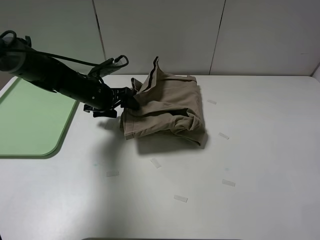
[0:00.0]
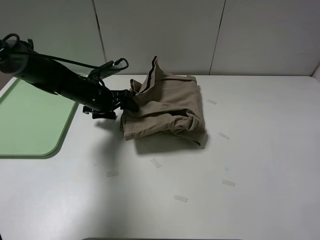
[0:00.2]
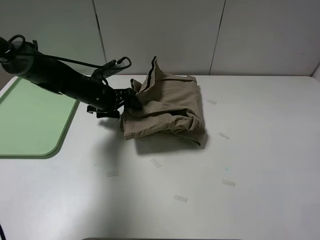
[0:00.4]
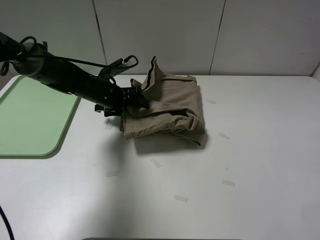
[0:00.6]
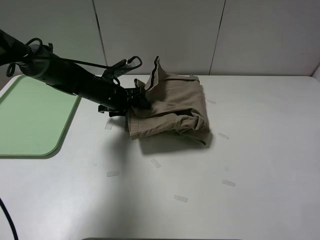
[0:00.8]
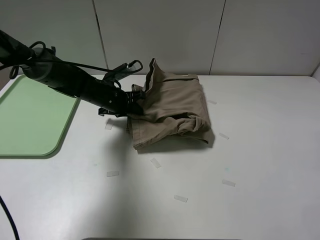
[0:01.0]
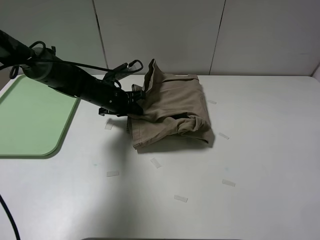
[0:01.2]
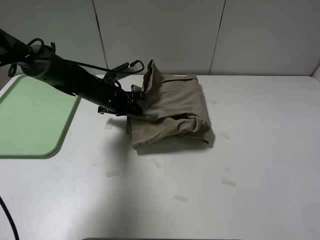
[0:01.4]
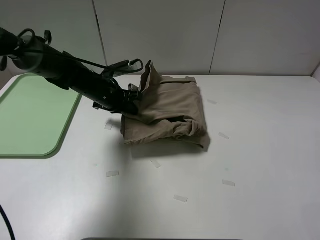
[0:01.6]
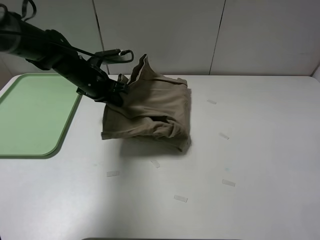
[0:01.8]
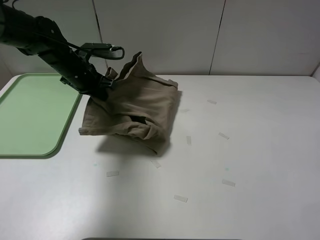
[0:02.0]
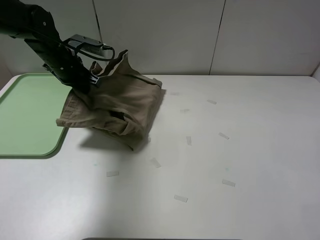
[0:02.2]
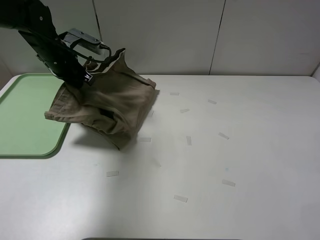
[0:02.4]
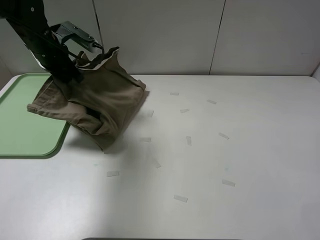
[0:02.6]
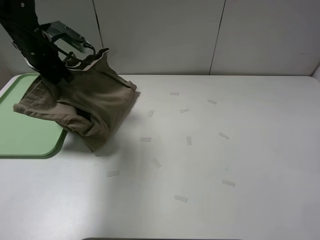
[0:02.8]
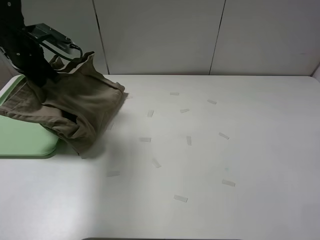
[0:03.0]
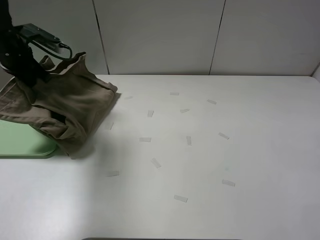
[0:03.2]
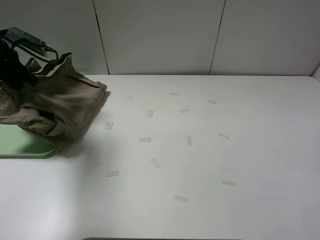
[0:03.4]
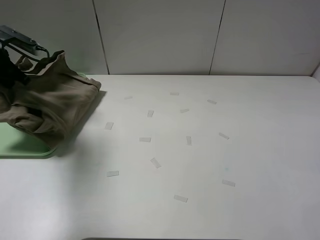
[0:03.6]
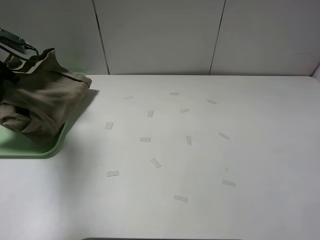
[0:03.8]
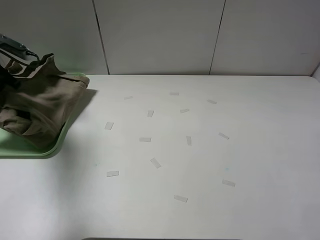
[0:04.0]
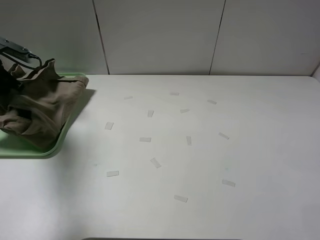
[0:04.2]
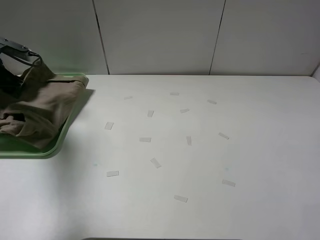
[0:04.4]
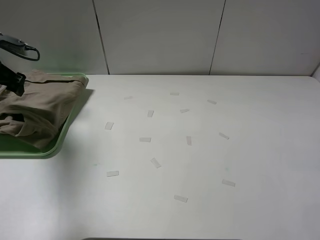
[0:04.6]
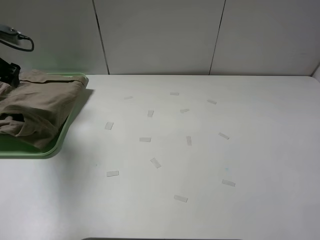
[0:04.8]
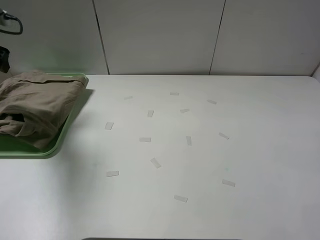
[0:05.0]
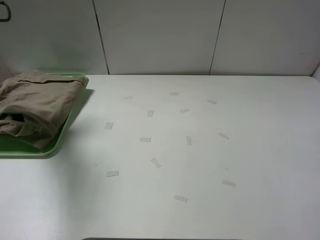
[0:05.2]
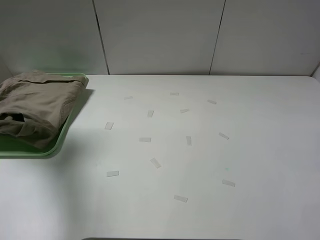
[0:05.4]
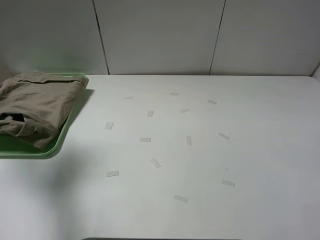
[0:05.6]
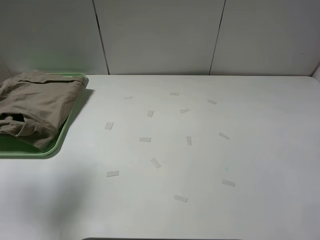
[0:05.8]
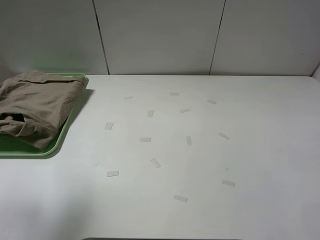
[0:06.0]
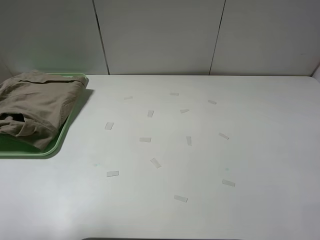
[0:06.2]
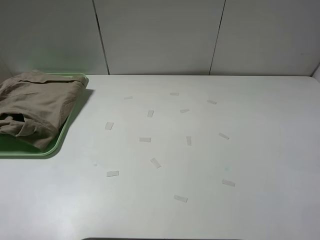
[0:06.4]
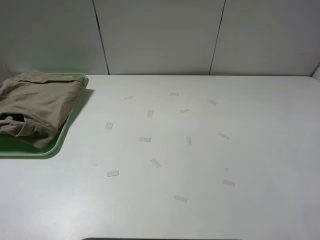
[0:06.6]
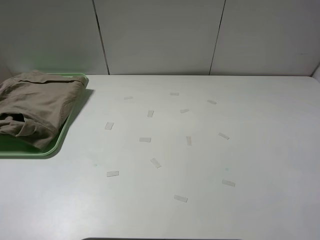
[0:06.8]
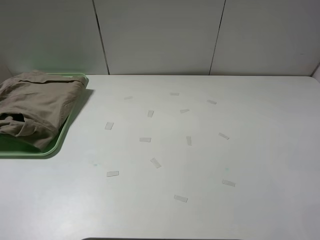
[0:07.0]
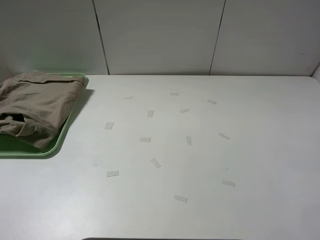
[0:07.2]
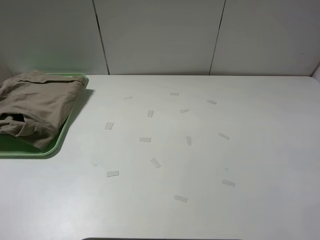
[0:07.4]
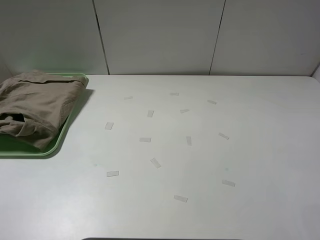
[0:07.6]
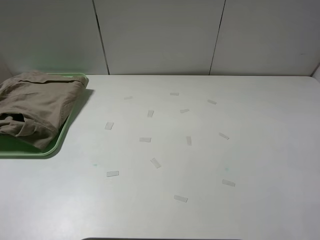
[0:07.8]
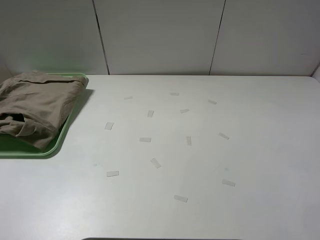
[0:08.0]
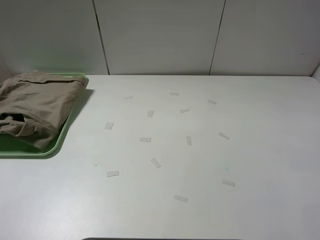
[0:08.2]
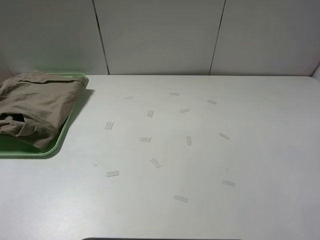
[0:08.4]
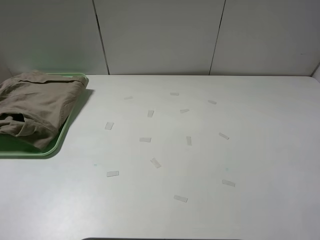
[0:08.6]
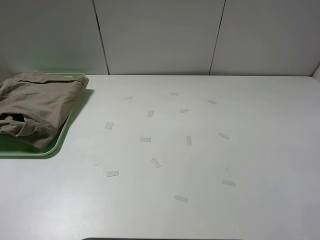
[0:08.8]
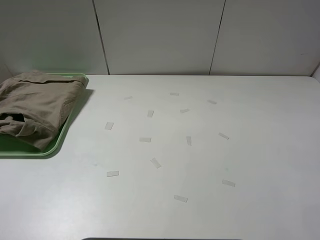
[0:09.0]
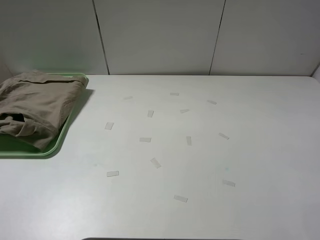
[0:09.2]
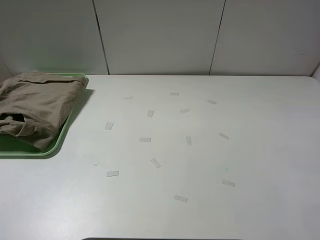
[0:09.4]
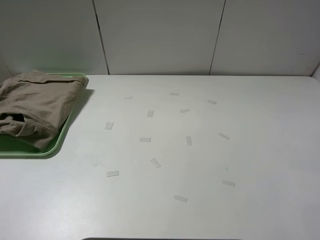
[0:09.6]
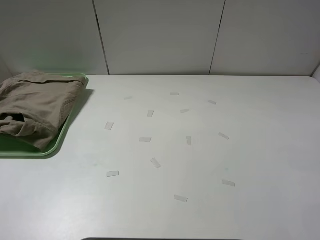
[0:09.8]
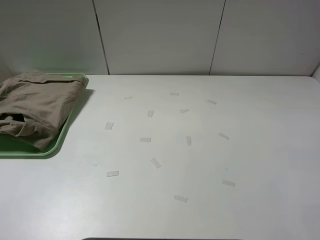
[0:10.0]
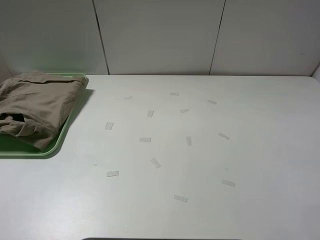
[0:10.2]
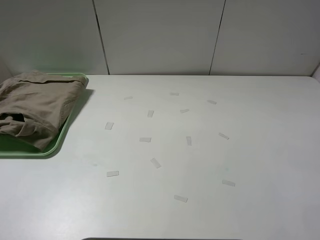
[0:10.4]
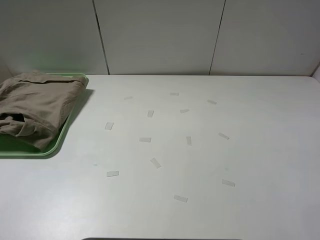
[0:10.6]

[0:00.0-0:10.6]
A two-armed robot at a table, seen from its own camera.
Task of the whole recording: fold the khaki jeans in half with two grippers, then fold them in half again, and use the left claw to place the folded fold khaki jeans on the tray.
Step, 0:01.8 to 0:04.4: Place the folded khaki trousers on the green tray with the left gripper.
0:00.0 to 0:01.6: The left gripper closes its fingers.
0:01.6 to 0:03.0: The left gripper moves to the left and upward, about 20 cm.
0:03.0 to 0:04.6: The left gripper is displaced to the left by some 10 cm, and opens its fingers.
0:04.6 to 0:06.0: The left gripper travels backward and upward by roughly 30 cm.
0:06.0 to 0:07.6: The left gripper shifts approximately 20 cm backward and downward.
0:09.0 to 0:10.6: The two grippers keep their place.
